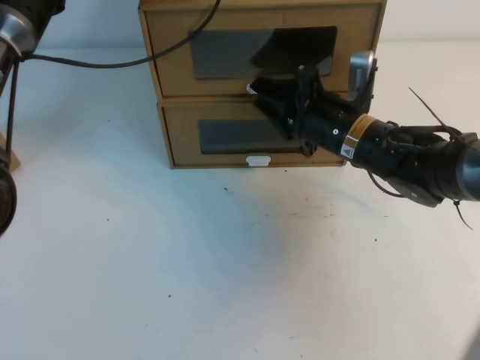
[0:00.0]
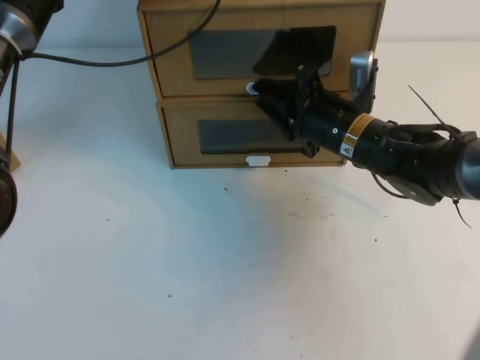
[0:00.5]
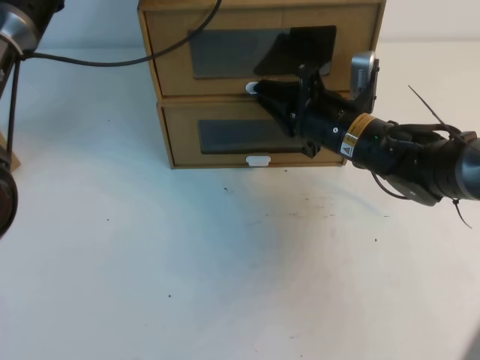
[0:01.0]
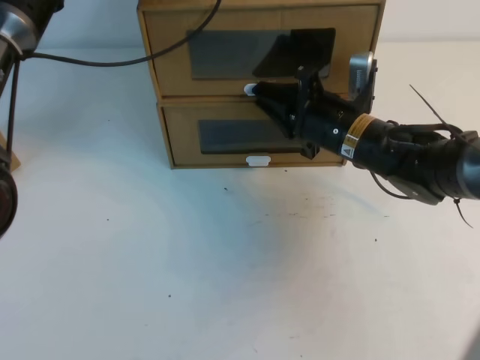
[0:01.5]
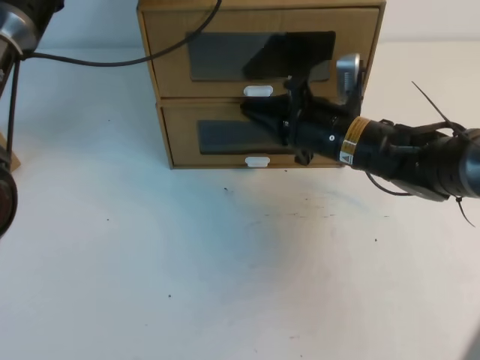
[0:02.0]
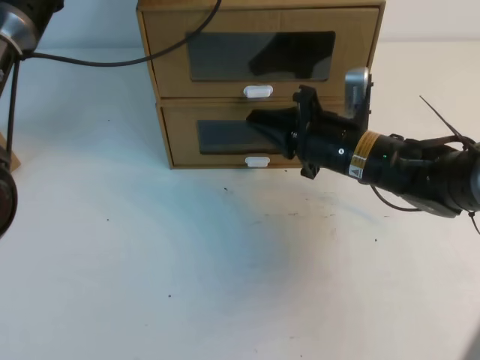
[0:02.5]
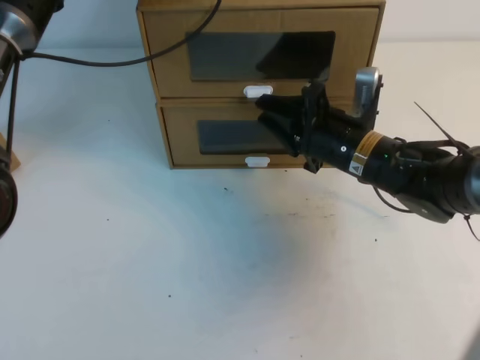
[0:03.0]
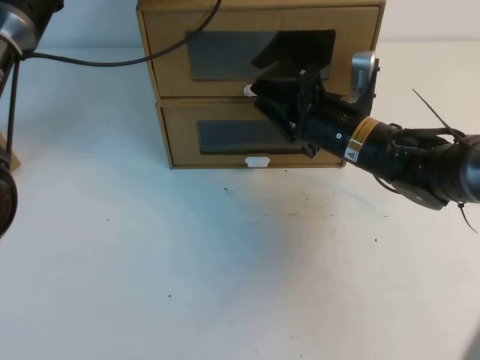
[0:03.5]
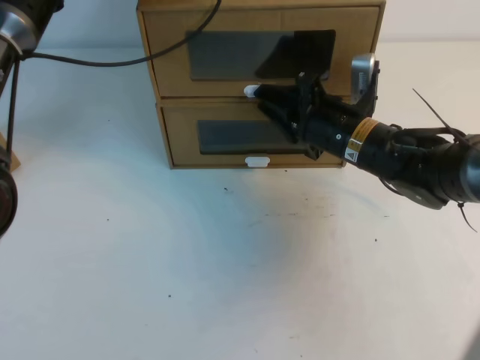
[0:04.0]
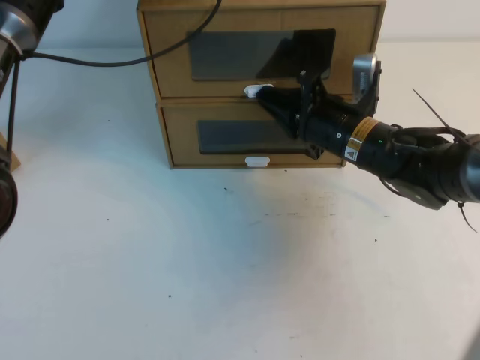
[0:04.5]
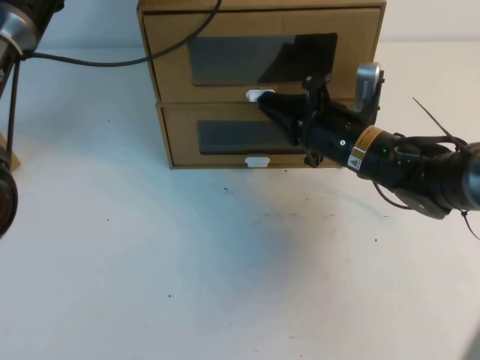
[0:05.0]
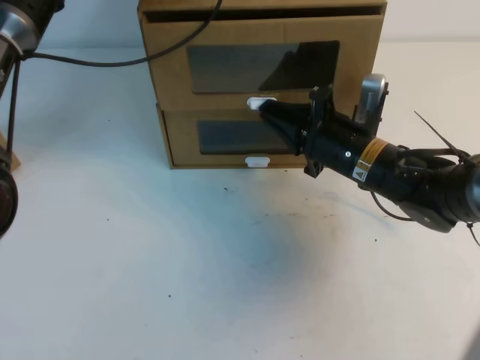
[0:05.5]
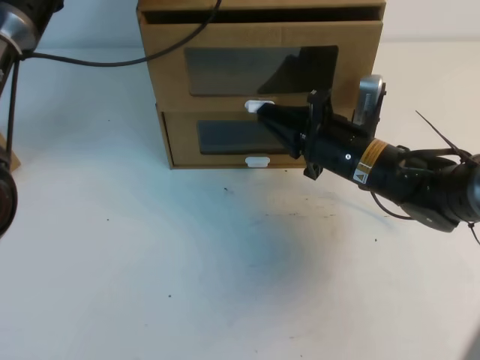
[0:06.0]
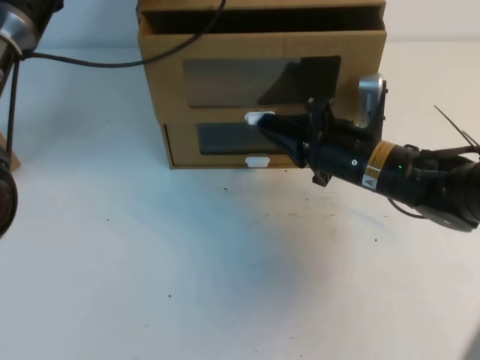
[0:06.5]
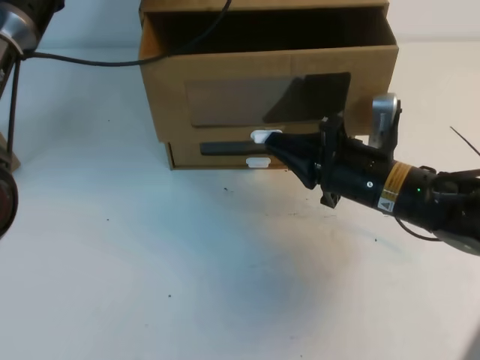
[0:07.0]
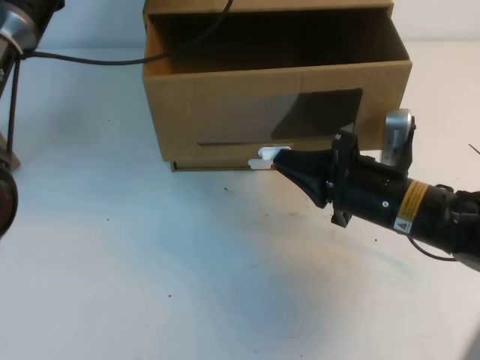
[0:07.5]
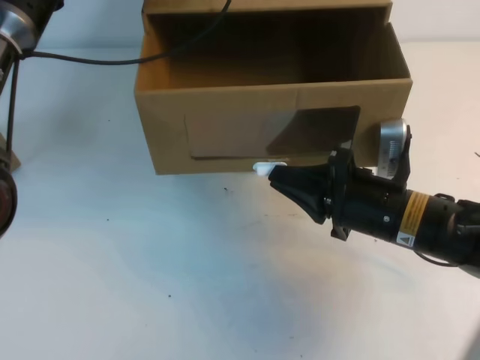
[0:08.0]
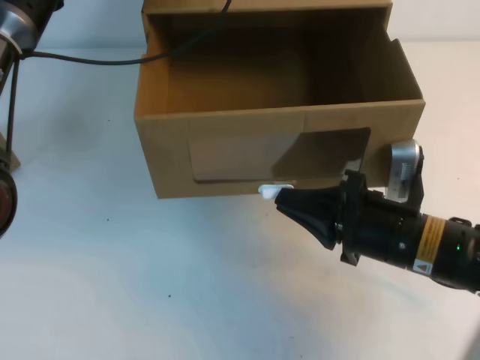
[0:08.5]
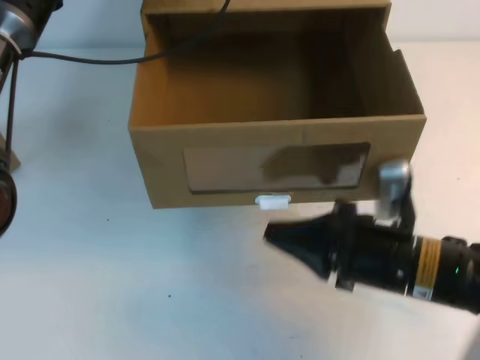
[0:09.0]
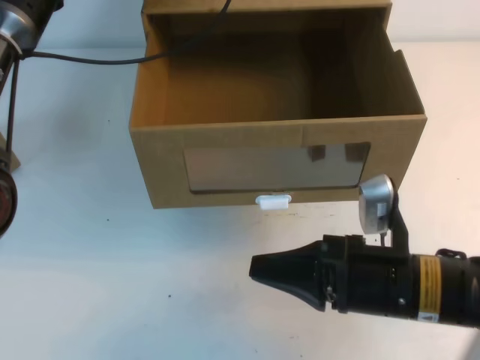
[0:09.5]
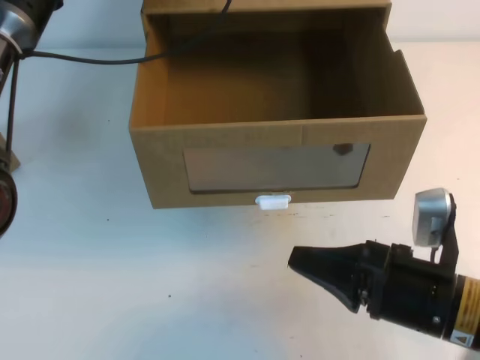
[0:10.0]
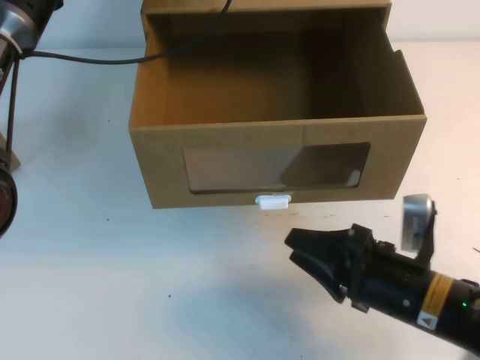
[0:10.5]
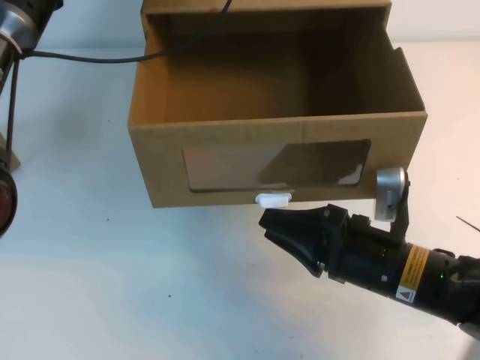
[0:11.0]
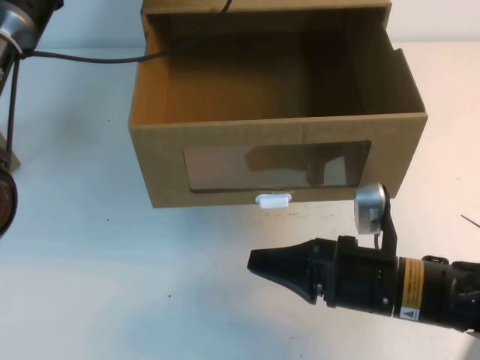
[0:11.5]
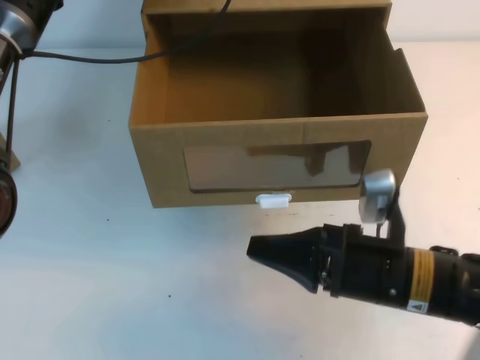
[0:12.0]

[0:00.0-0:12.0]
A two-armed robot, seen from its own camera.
Task of the whole recording: open the shoebox on the table.
0:00.0 to 0:02.0: The right gripper closes.
0:02.0 to 0:04.0: The right gripper opens its fingers.
0:04.0 to 0:06.0: The right gripper closes its fingers.
0:06.0 to 0:08.0: The right gripper goes approximately 10 cm backward.
0:08.0 to 0:10.0: The right gripper goes about 10 cm backward.
0:10.0 to 0:12.0: The right gripper opens, then closes again.

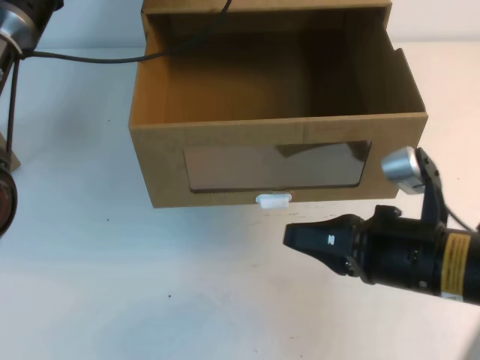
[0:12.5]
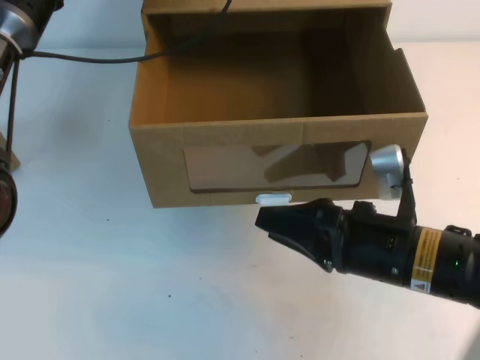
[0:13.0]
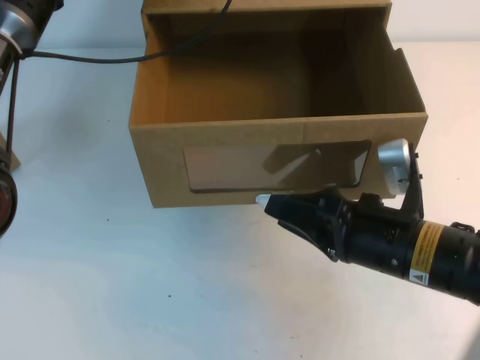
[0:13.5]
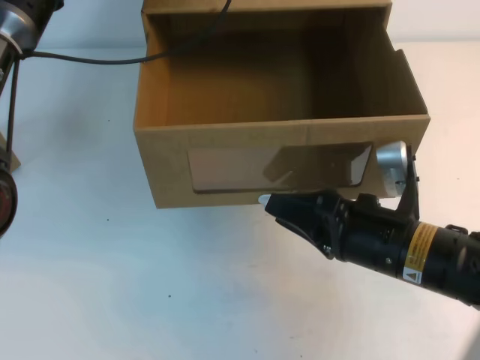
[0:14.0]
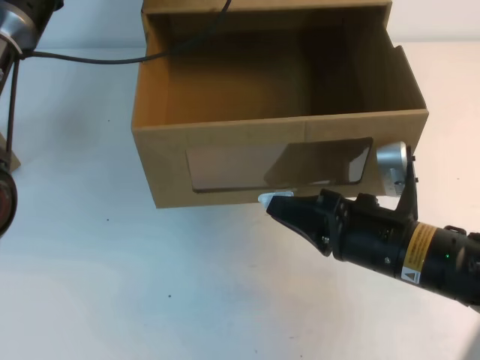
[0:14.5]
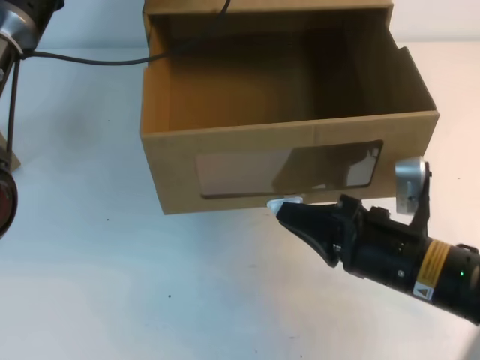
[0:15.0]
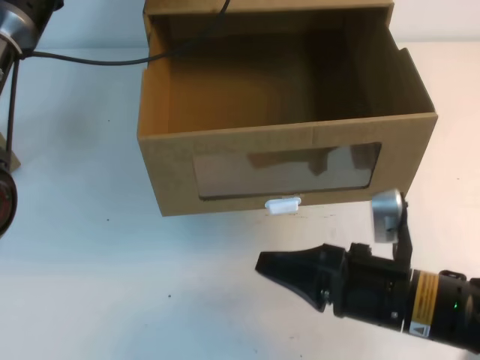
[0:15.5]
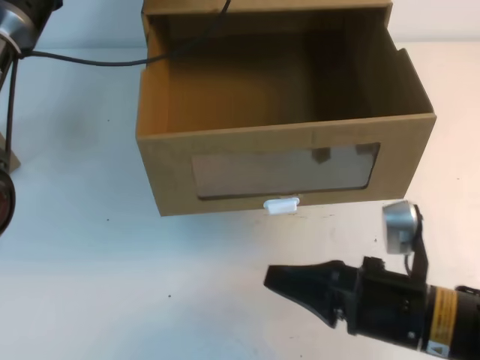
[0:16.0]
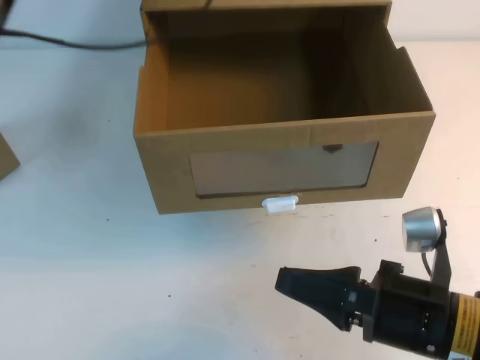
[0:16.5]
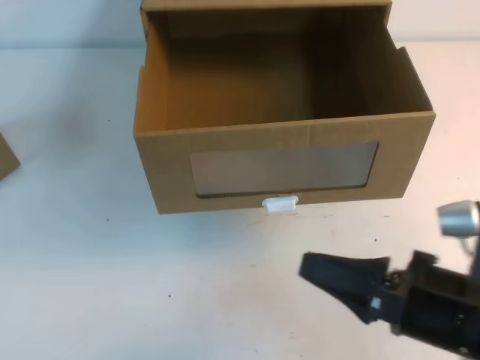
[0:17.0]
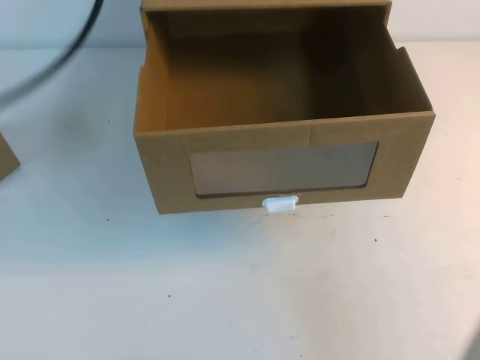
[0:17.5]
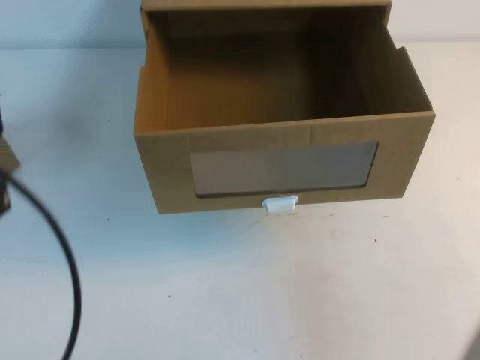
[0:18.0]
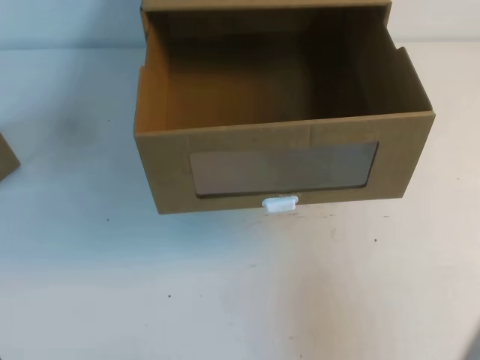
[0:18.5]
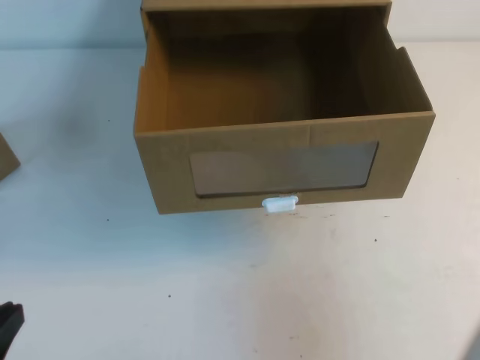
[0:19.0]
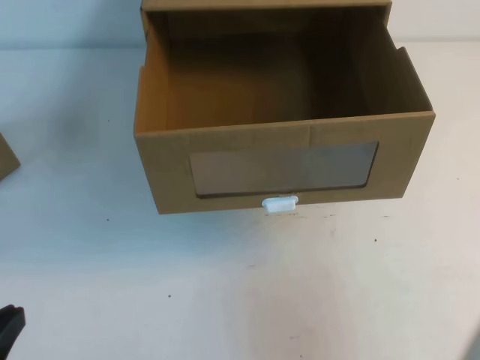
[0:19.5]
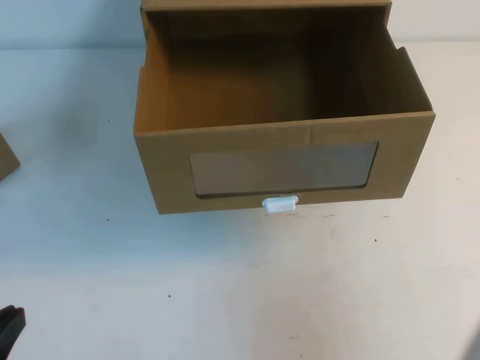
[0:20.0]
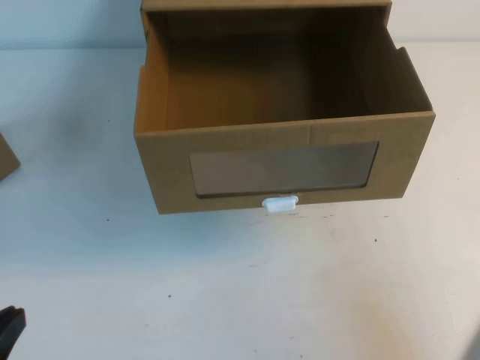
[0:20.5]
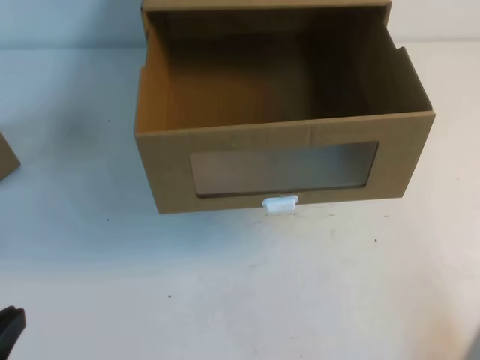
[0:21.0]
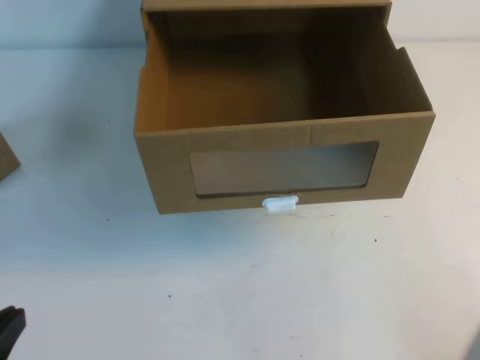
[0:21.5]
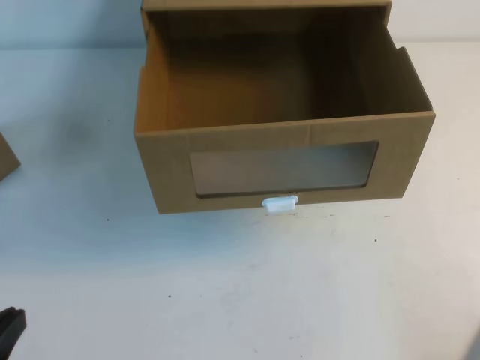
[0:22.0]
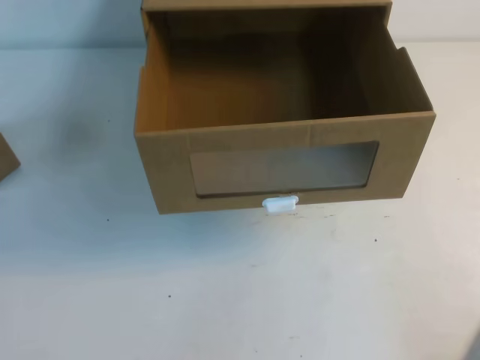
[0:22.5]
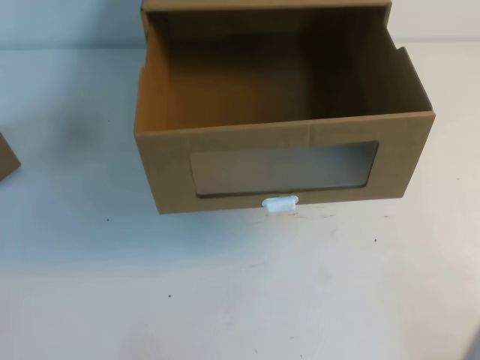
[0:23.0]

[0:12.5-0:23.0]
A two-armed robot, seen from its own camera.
Task of the whole recording: open the shoebox on the table.
Step, 0:12.5 to 0:23.0: Open the shoe box.
0:12.5 to 0:14.5: The right gripper opens, then closes once more.
0:14.5 to 0:16.5: The right gripper travels backward by approximately 5 cm, while the left gripper goes approximately 10 cm upward.
0:16.5 to 0:19.0: The right gripper goes roughly 25 cm upward, to the right and backward. The left gripper travels backward by some 40 cm.
0:19.0 to 0:21.0: The right gripper is displaced downward by some 15 cm.

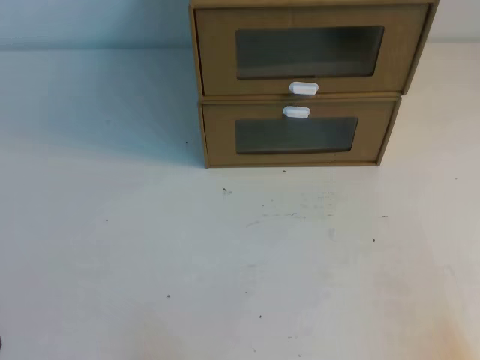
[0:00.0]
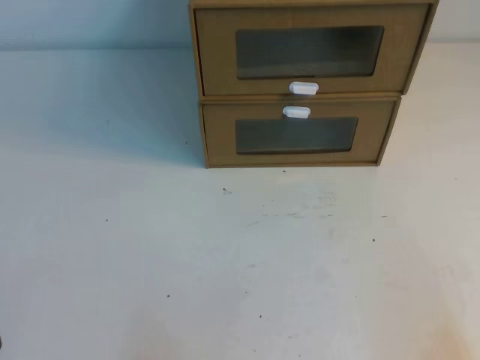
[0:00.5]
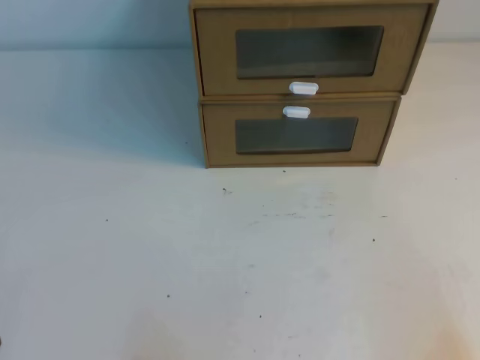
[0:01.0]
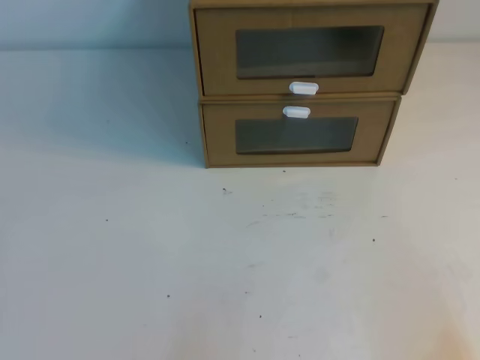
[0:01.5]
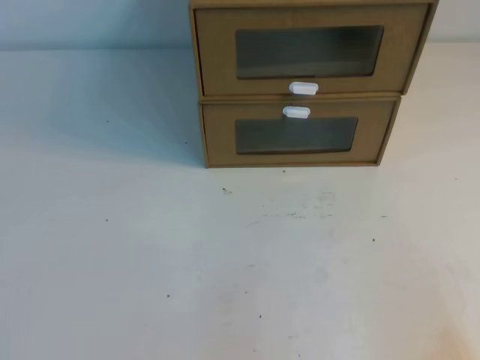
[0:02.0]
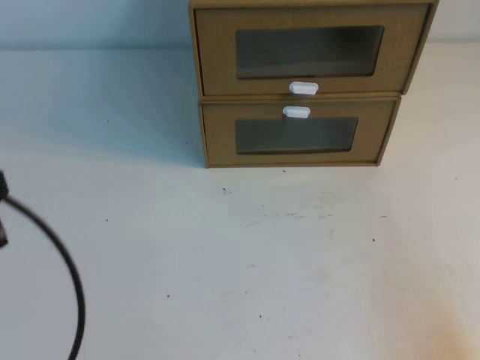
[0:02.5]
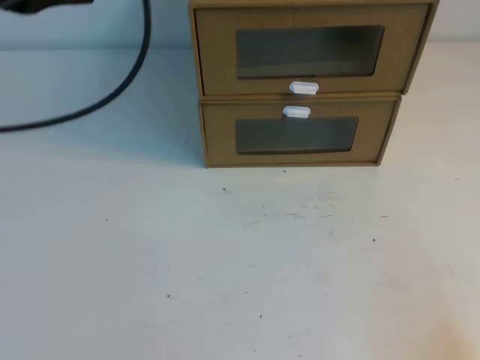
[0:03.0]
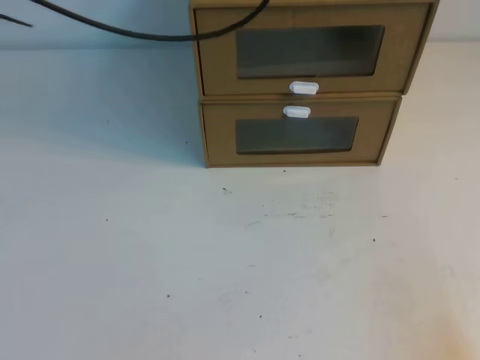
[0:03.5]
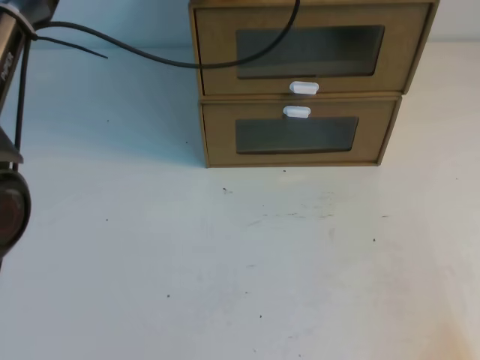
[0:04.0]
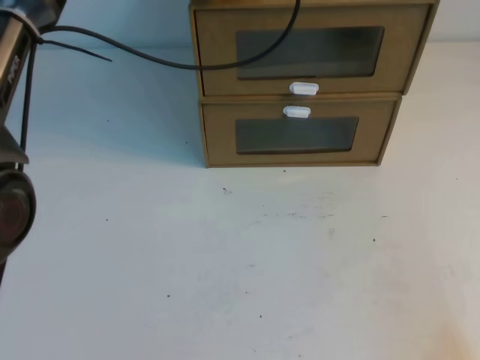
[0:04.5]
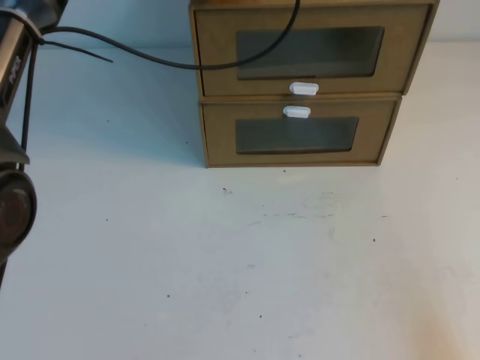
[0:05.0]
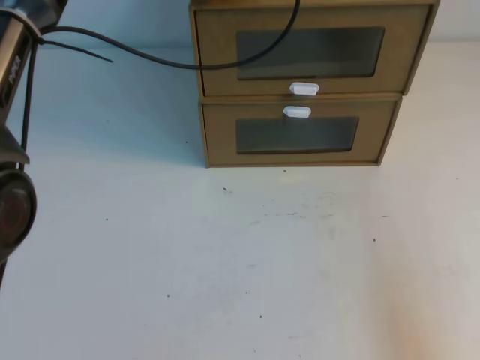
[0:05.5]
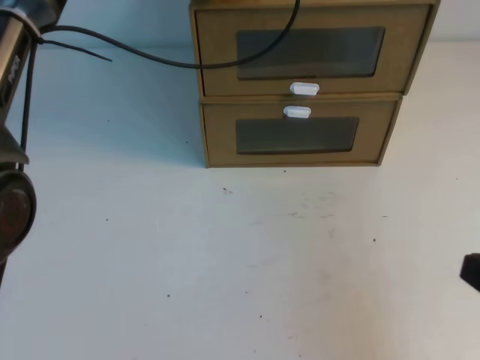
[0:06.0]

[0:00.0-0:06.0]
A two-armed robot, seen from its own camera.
Task of the whole recording: open the shoebox on the table.
0:02.0 to 0:04.0: The left gripper travels forward, upward and to the right by about 50 cm.
0:04.0 to 0:06.0: The right gripper moves upward, approximately 10 cm.
